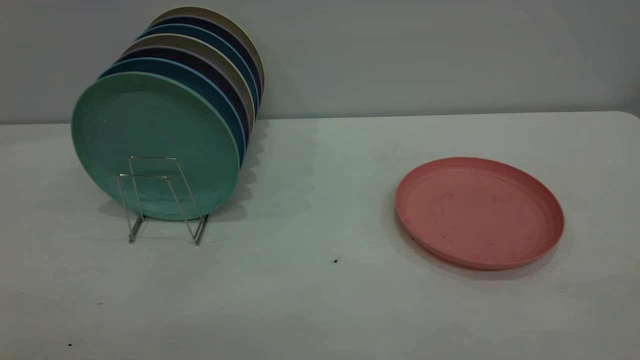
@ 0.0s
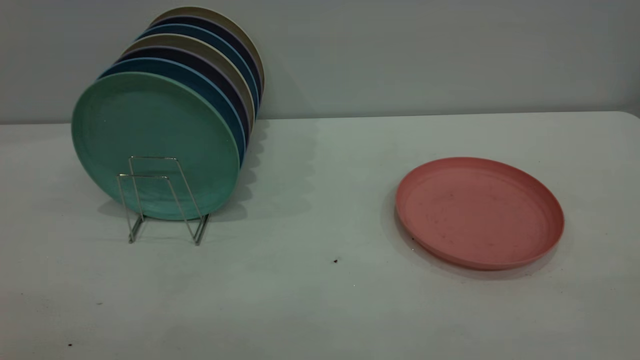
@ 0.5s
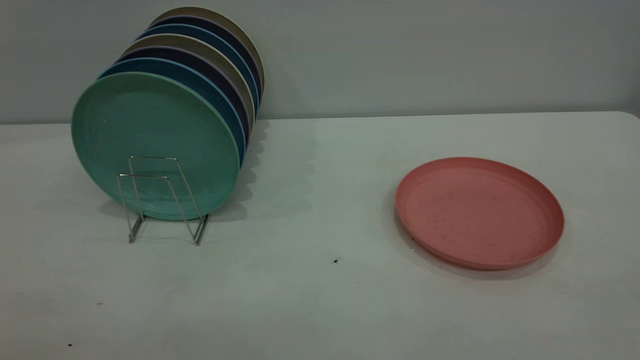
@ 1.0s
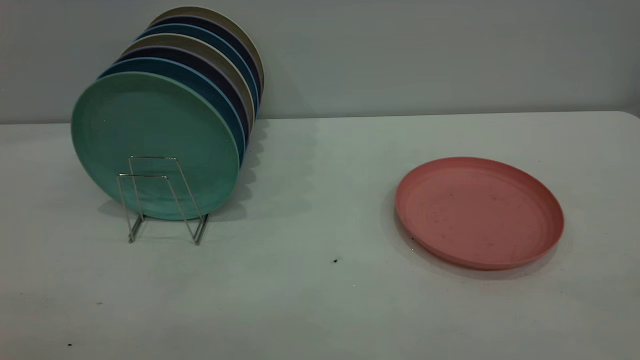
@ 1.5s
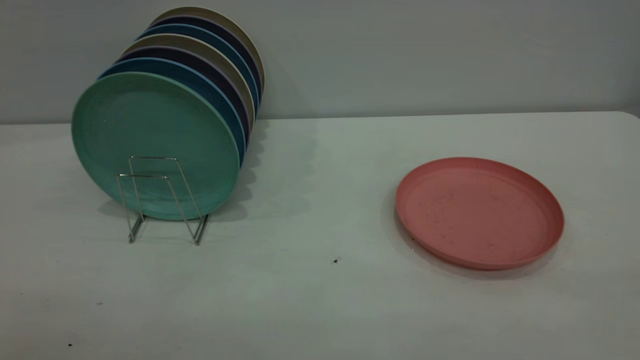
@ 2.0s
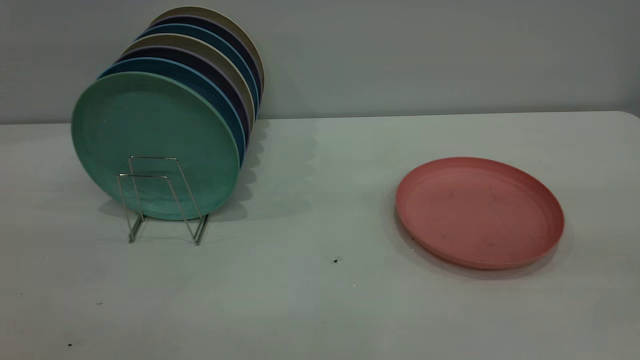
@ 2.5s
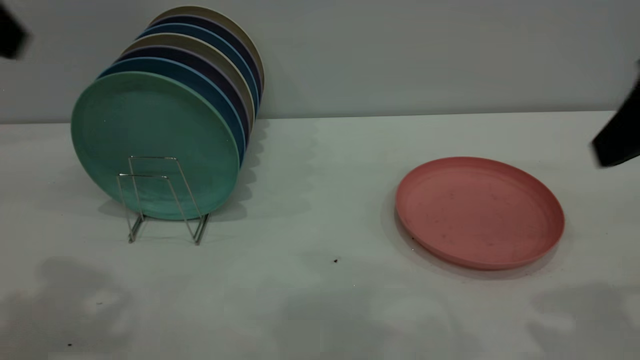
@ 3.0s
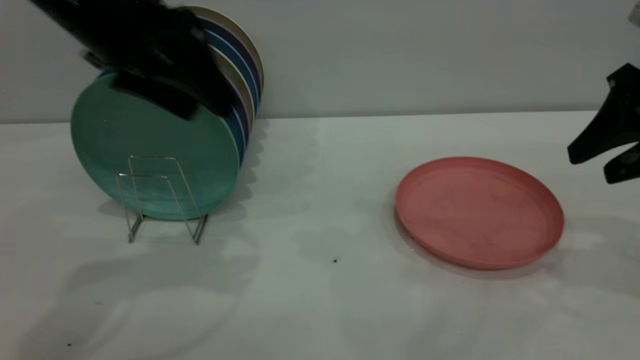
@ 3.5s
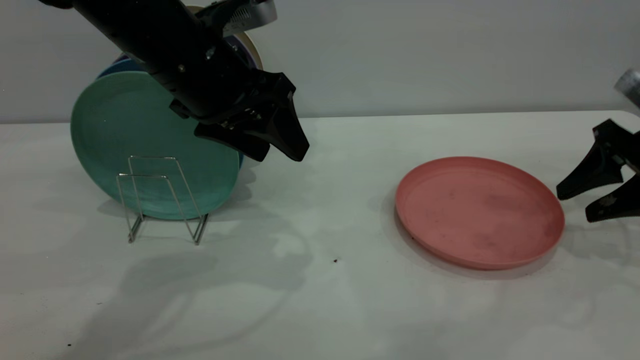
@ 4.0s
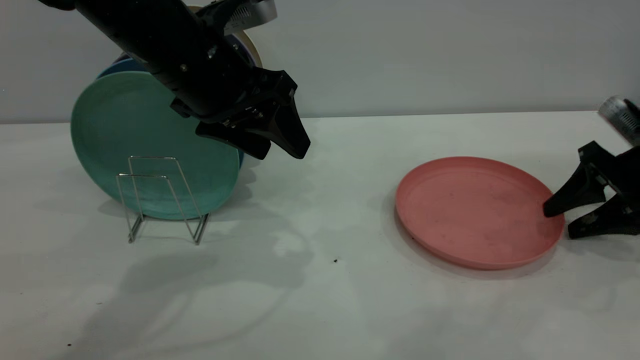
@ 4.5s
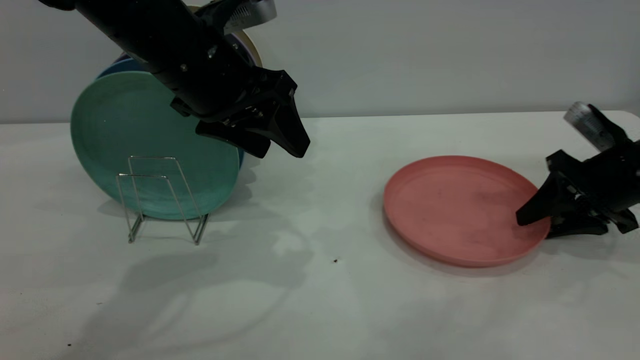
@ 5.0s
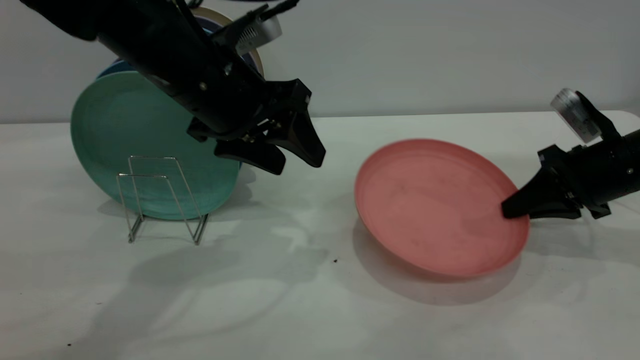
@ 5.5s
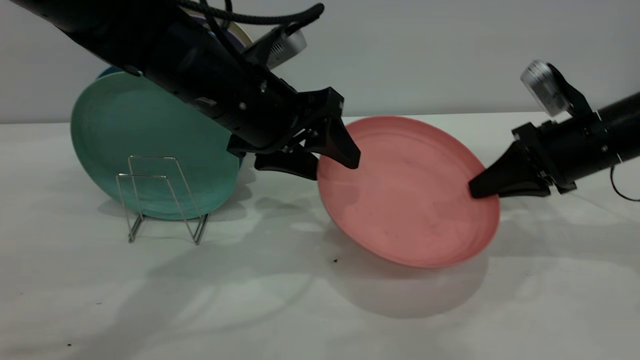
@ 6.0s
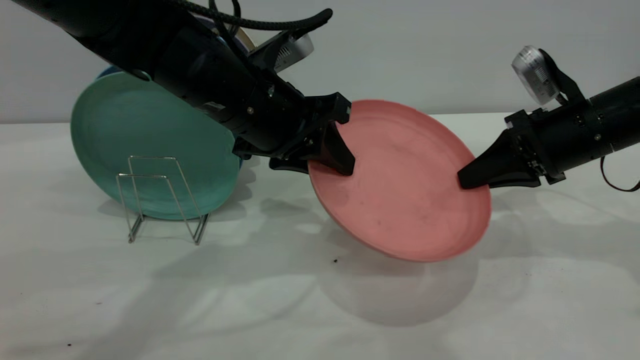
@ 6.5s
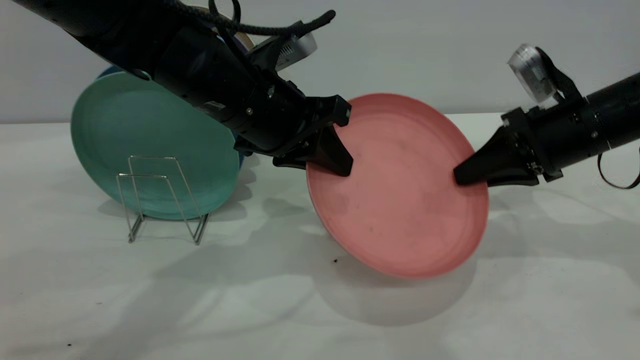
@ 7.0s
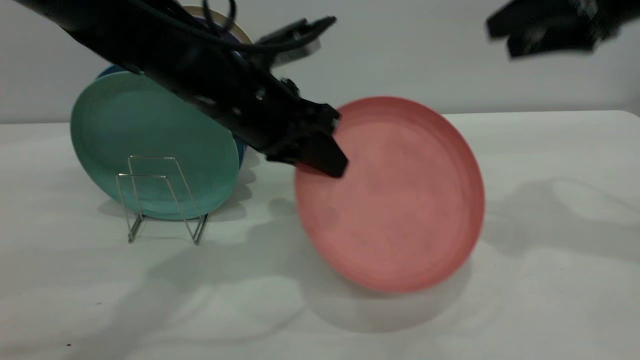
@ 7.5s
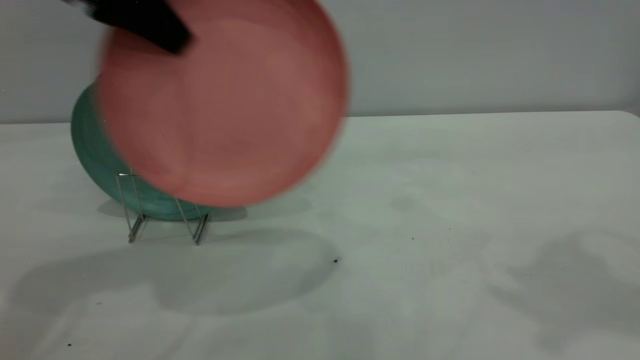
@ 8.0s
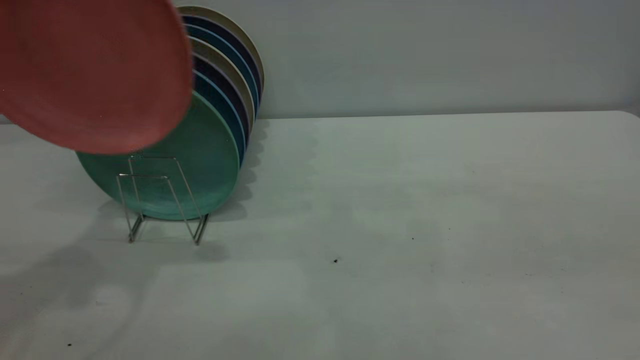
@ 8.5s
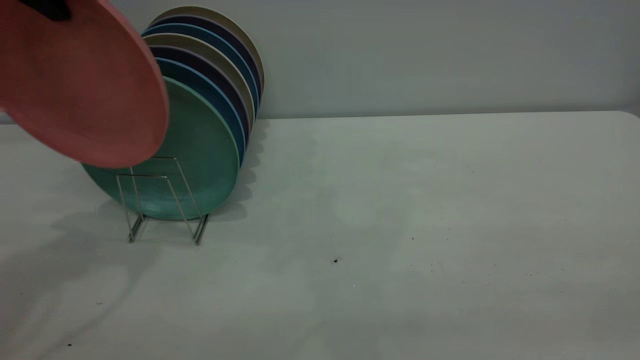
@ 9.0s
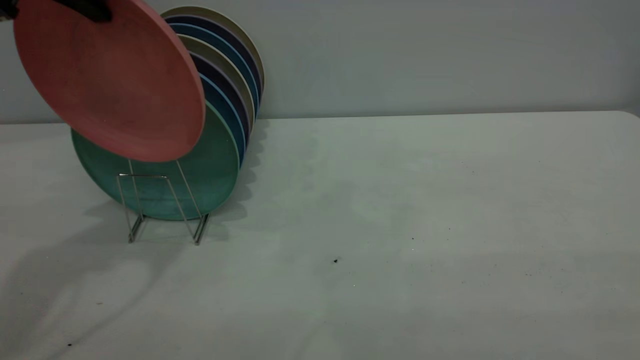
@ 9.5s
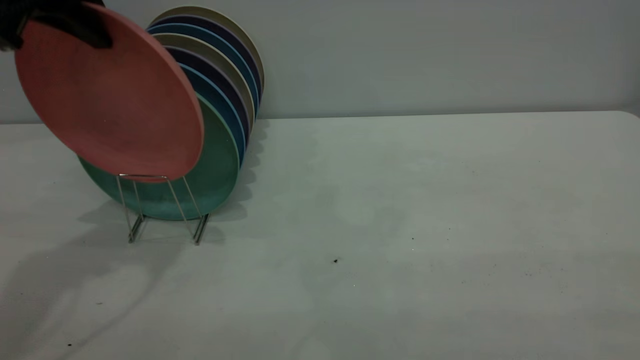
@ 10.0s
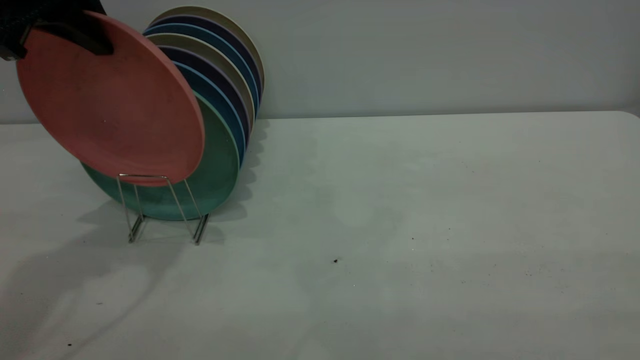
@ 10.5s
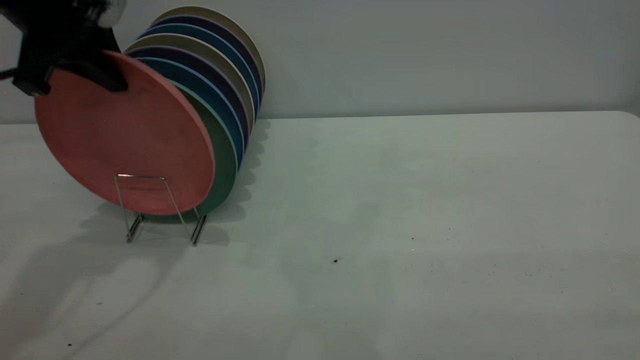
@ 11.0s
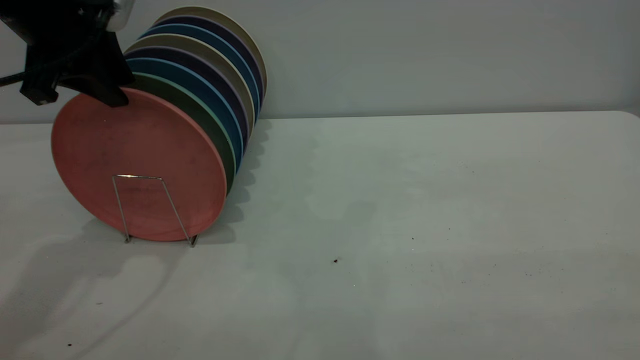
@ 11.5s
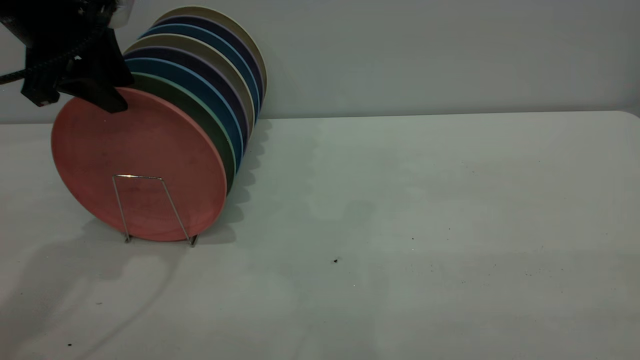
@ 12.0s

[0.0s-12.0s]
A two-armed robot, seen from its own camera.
Task of the whole recording: the right gripper grasp the pink plate, the right gripper pass the pink plate to the left gripper, and the left gripper place the pink plate on the plate rack.
Step, 0.0s to 5.5s: Pick up the plate with the right gripper.
Step, 6.0s to 8.5s: Pass the plate from the right gripper to the left gripper.
2.0s to 4.0s: The right gripper heads forward and downward, covering some 40 cm. Meanwhile the left gripper is displaced forward and to the right by about 40 cm.
4.0s to 6.0s: The left gripper shifts by some 5 cm. The right gripper shifts approximately 10 cm to the left, and closes its fingers.
6.0s to 8.0s: The right gripper moves upward and backward, about 30 cm, and opens its fingers, while the left gripper heads upward and to the left, covering approximately 20 cm, and closes up.
8.0s to 10.0s: The left gripper shifts by about 5 cm; the right gripper moves backward, about 25 cm.
10.0s to 12.0s: The left gripper opens.

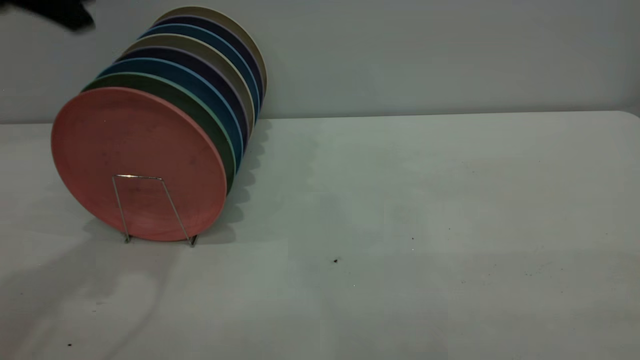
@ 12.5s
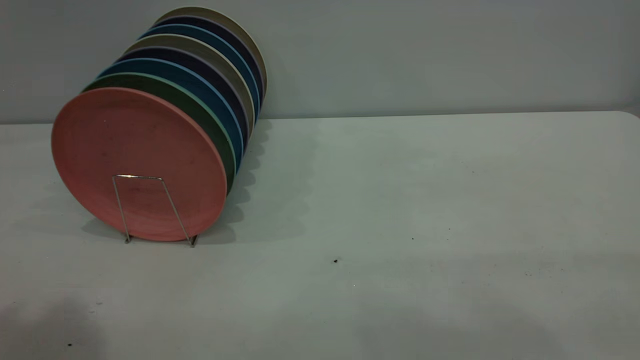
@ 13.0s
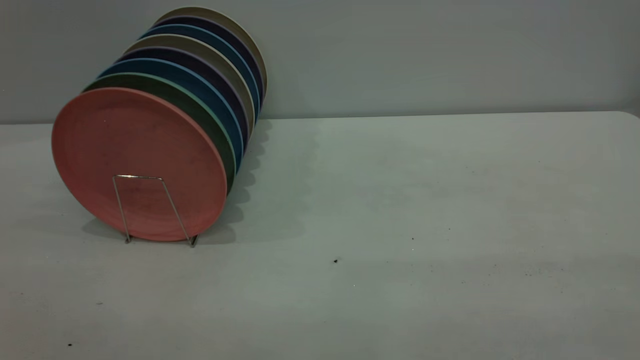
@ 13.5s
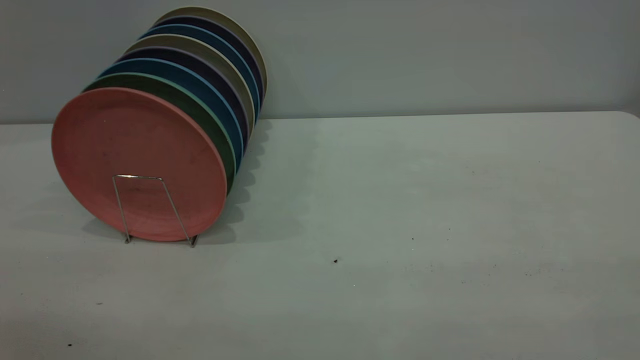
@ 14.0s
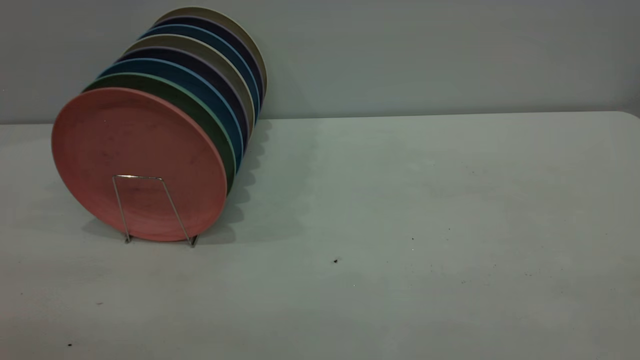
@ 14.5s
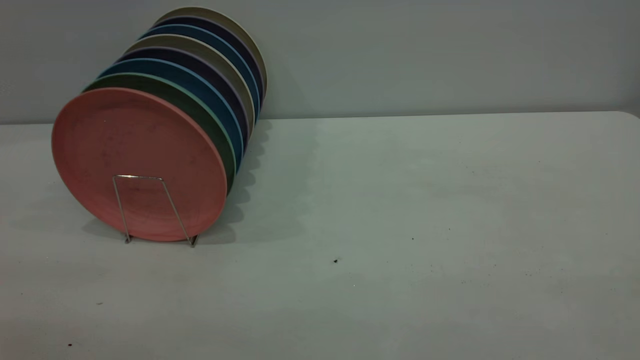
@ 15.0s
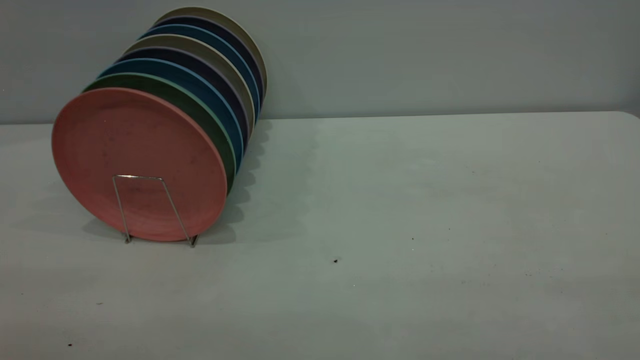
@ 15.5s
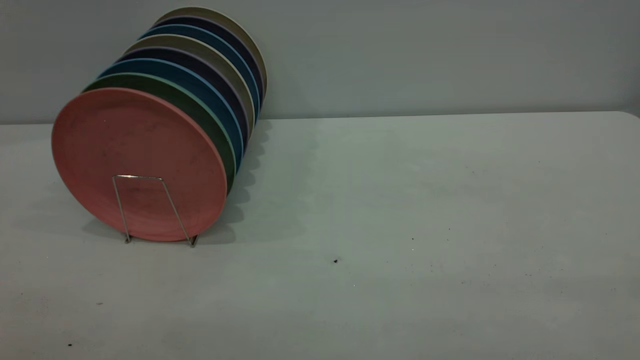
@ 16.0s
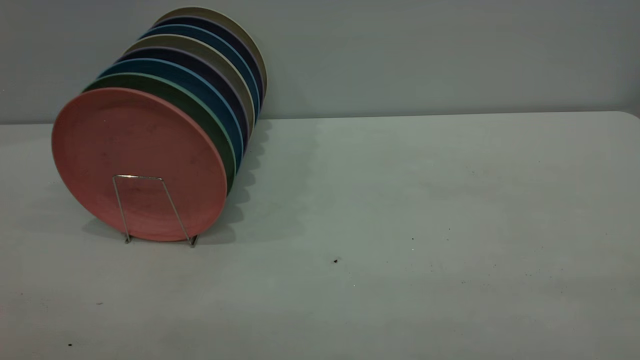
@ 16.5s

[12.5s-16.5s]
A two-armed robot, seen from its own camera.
Task of the whole recording: the right gripper grasp the pink plate, the right gripper pass the pink plate to the left gripper, and the left gripper place the pink plate on the plate rack.
12.5s to 14.5s: The left gripper moves backward, some 30 cm.

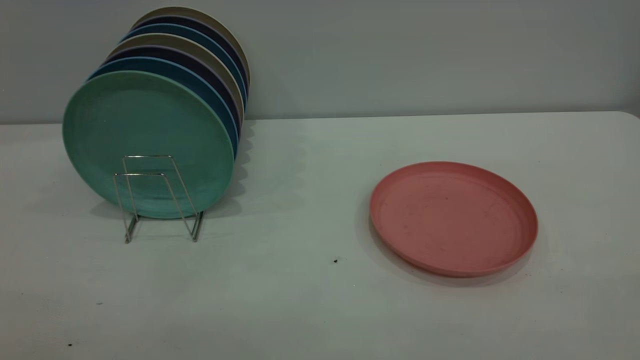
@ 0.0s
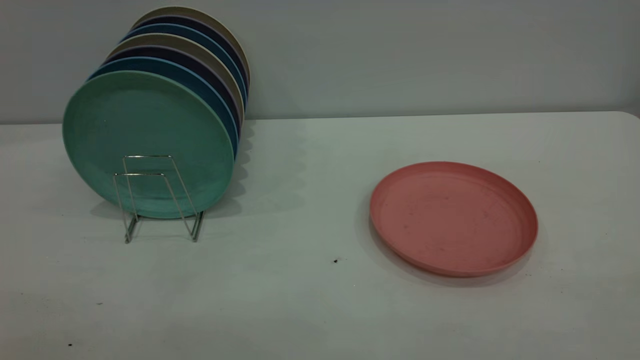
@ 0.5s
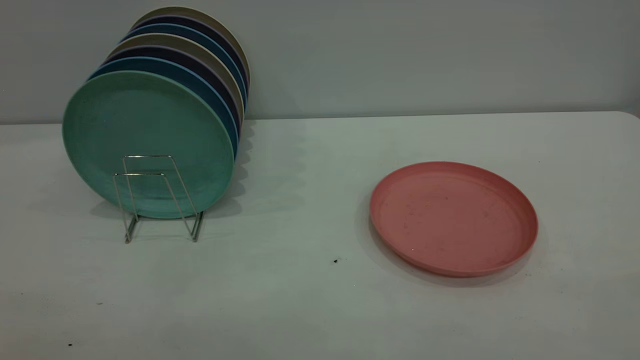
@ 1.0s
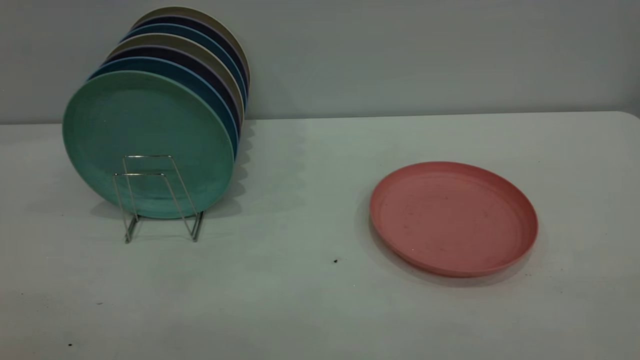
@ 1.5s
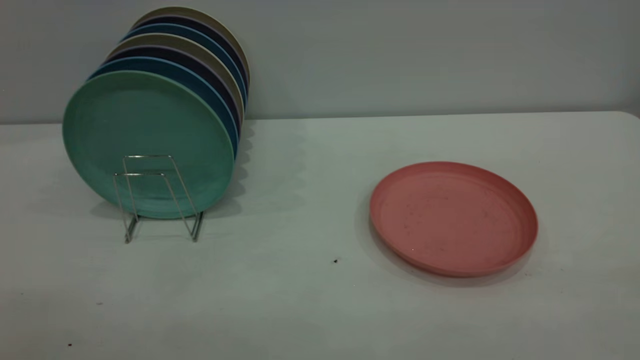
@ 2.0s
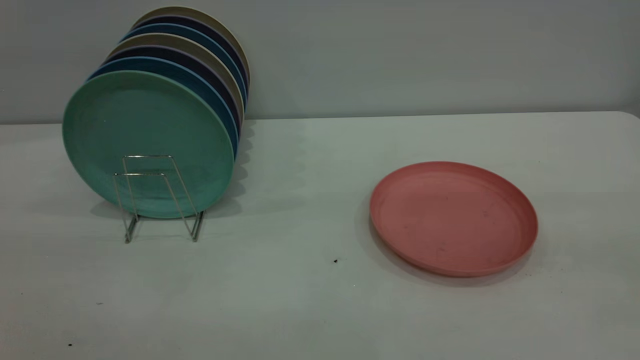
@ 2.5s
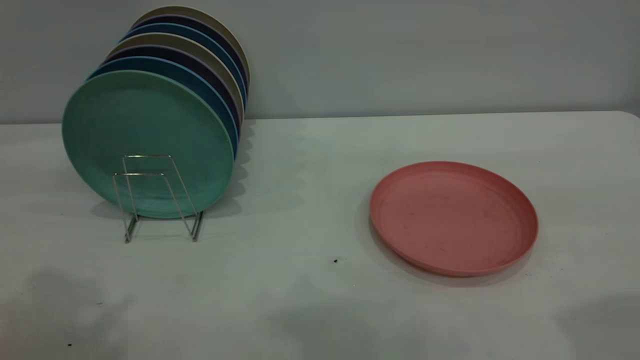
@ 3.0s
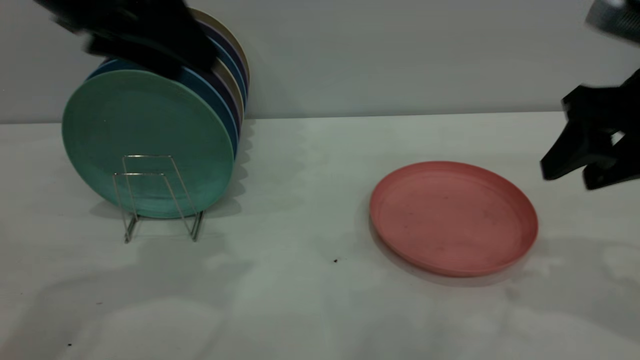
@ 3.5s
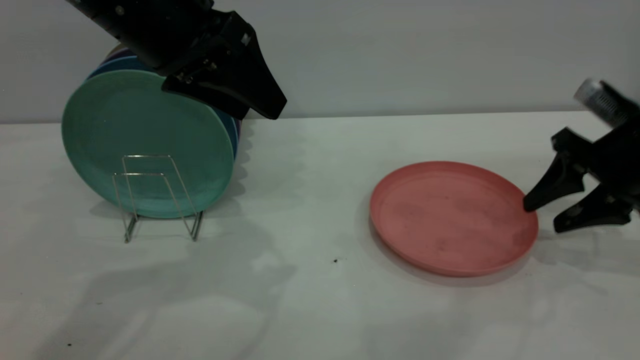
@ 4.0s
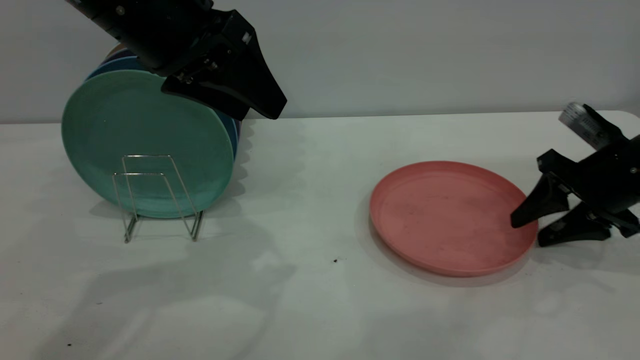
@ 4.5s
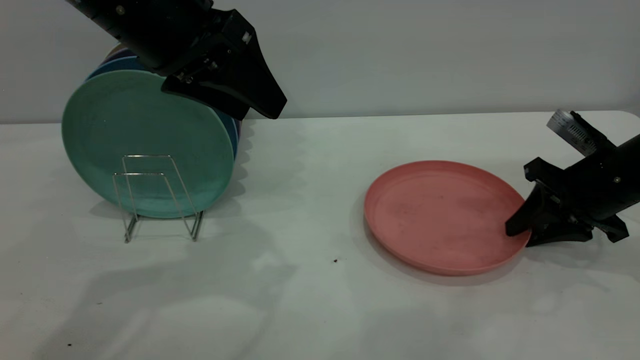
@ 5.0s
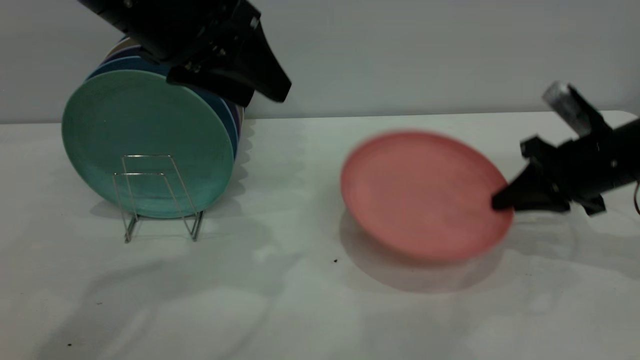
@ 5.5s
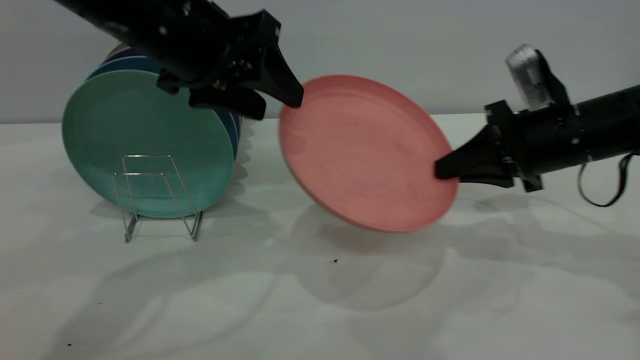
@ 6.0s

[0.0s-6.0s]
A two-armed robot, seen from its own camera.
Task of the whole recording: the right gripper grasp the pink plate, the right gripper pass the pink plate to the left gripper, and the left gripper place the pink plate on the plate rack.
Step, 0.0s to 5.0s: Pick up the plate with the right gripper.
2.0s to 4.0s: The left gripper shifts about 40 cm forward and to the right, and opens up, while the right gripper travels forward and downward by some 40 cm.
4.0s to 6.0s: The right gripper shifts approximately 10 cm to the left, and closes up.
